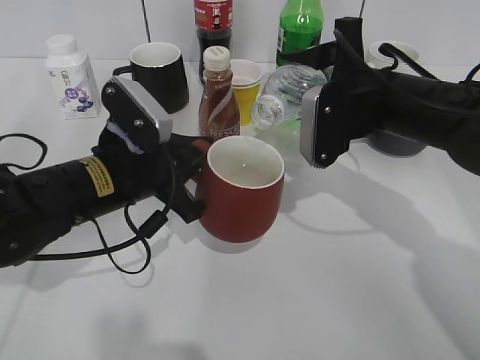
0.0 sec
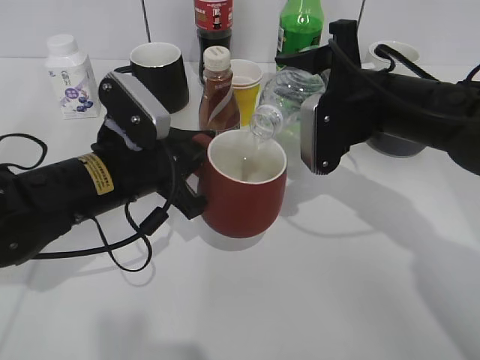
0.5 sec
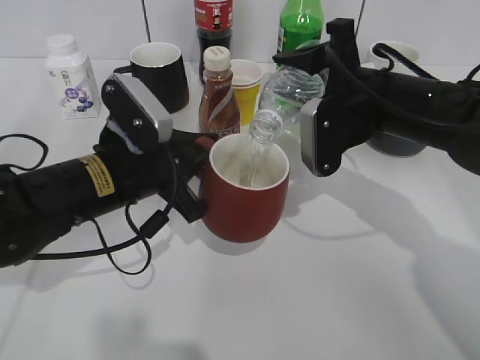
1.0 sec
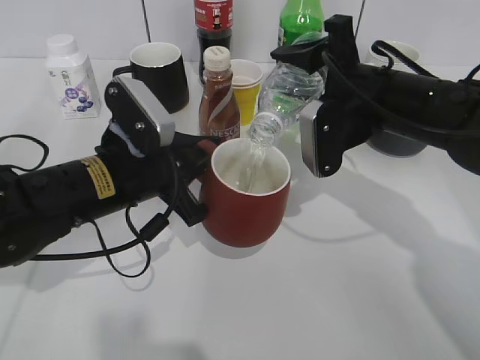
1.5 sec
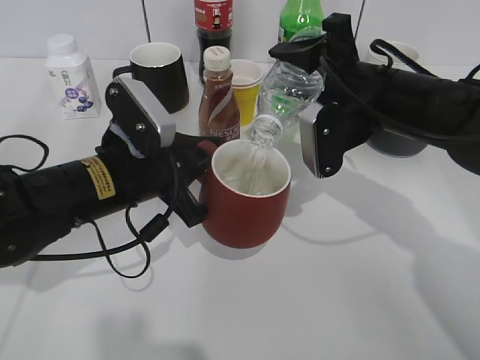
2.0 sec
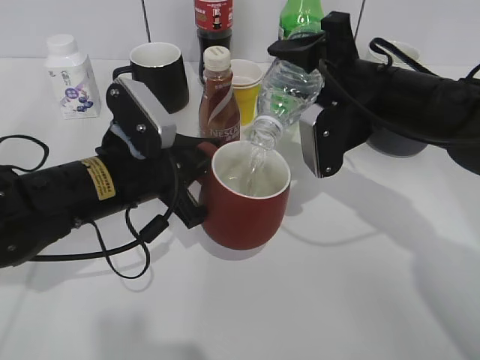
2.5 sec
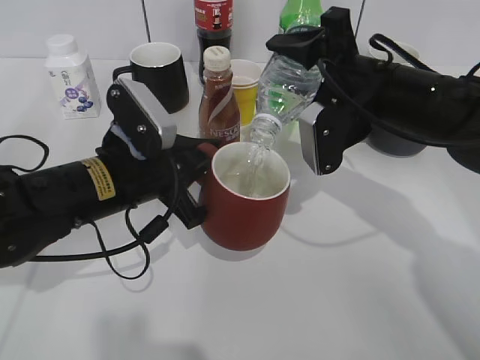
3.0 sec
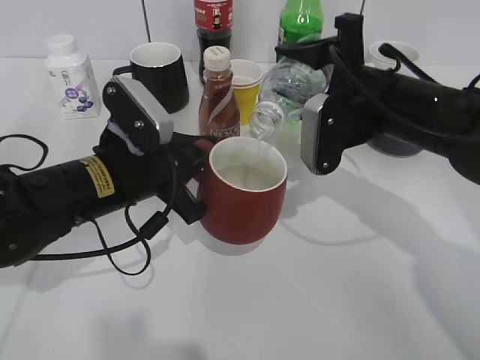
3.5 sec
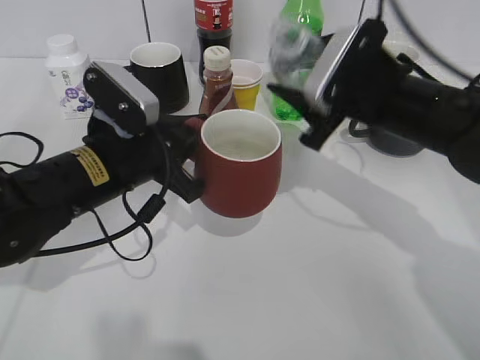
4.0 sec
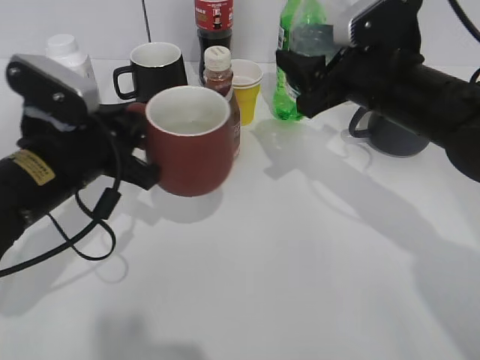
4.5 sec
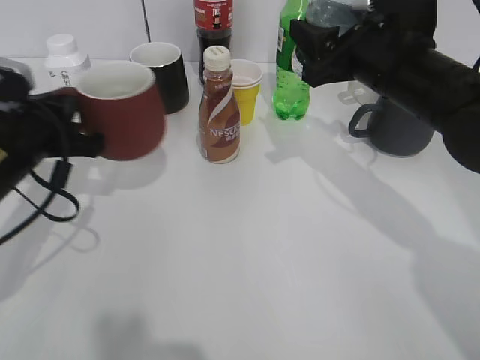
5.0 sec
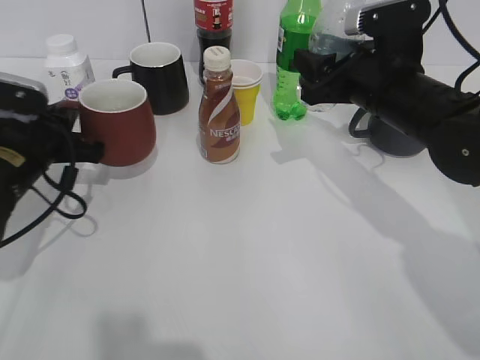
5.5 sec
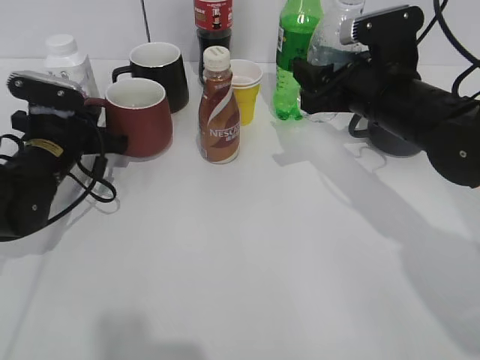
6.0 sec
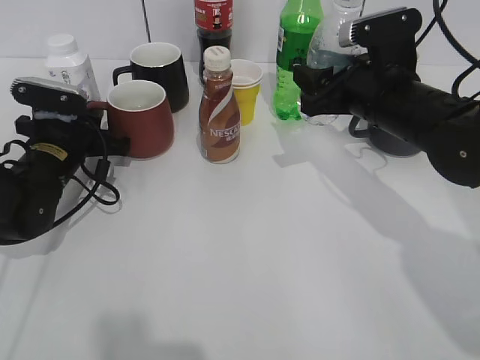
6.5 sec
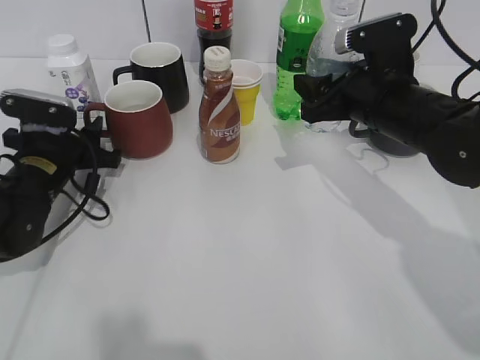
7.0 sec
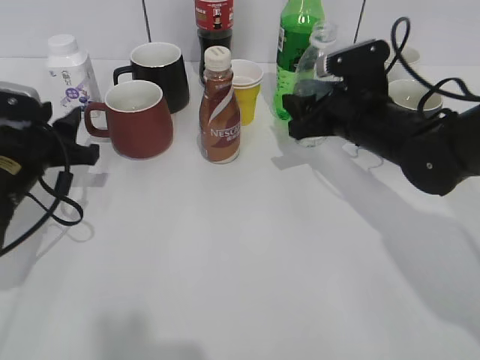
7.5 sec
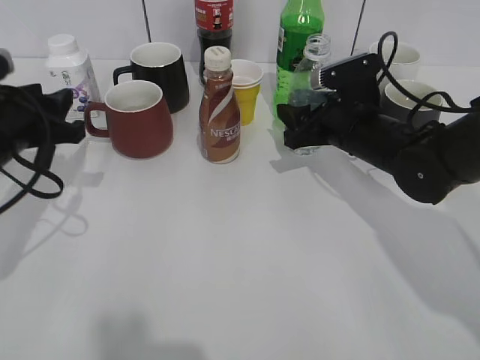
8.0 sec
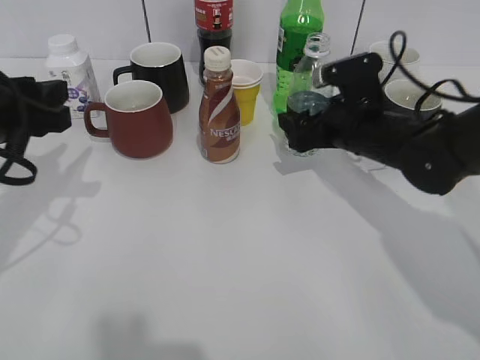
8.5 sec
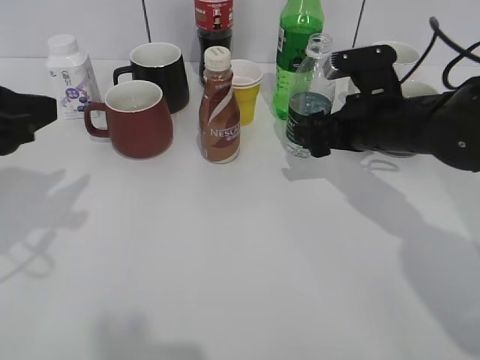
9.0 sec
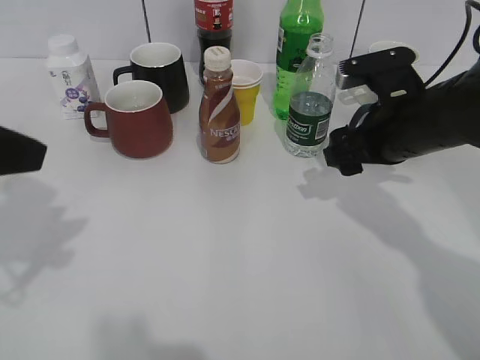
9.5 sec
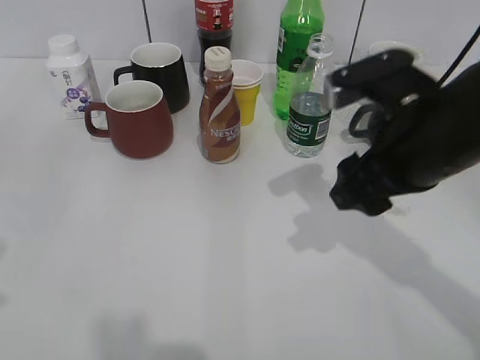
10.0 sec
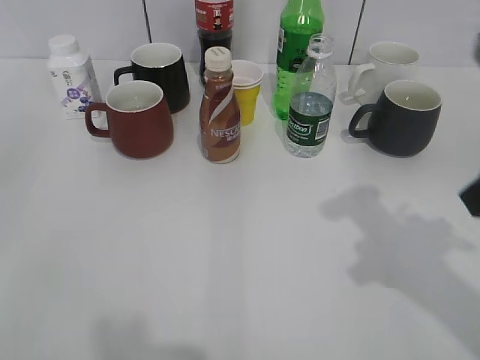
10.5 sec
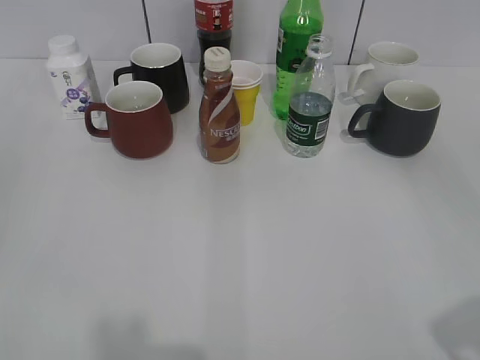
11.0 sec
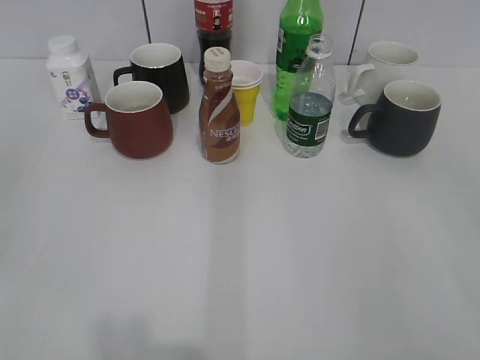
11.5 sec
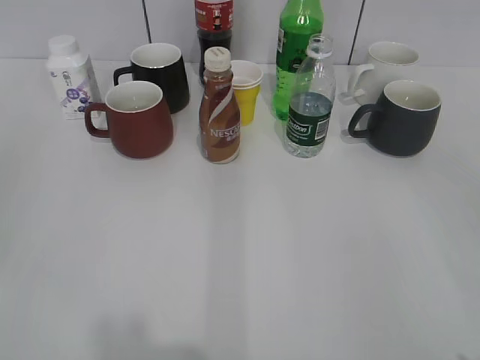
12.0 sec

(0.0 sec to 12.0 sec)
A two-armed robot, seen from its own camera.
Step, 0.0 sec - 3.5 sec: Pour the water from bottle to cup with right gripper.
Step, 4.0 sec - 6.5 sec: Place the red cup on the table with left gripper.
Step, 7.0 sec - 9.0 sec: Place the water bottle on the table with right gripper.
0.0 sec - 2.0 sec: The grippers stay close to where they were, moving slightly.
4.0 sec - 6.0 sec: The left gripper travels to the left and forward by some 15 cm.
6.0 sec - 8.0 sec: The right gripper goes about 5 cm downward. Meanwhile the left gripper shifts about 10 cm backward and upward, and opens.
8.0 sec - 10.0 sec: The left gripper moves backward and upward, about 25 cm. The right gripper travels backward and upward by roughly 15 cm, and opens and closes again.
10.0 sec - 12.0 sec: The right gripper is displaced backward and to the right by about 30 cm.

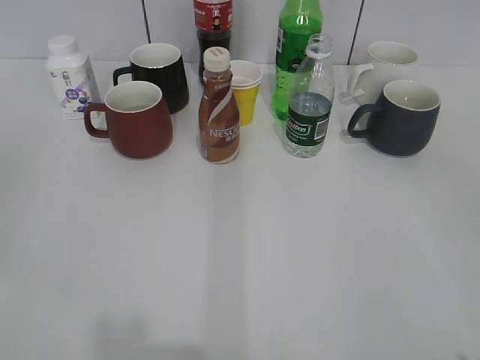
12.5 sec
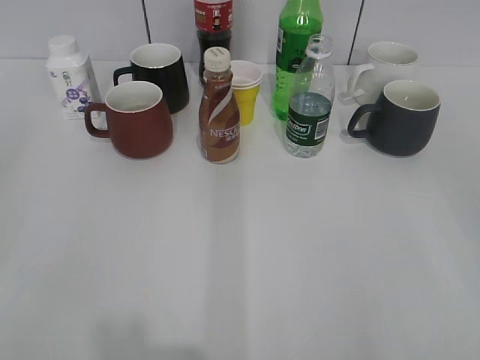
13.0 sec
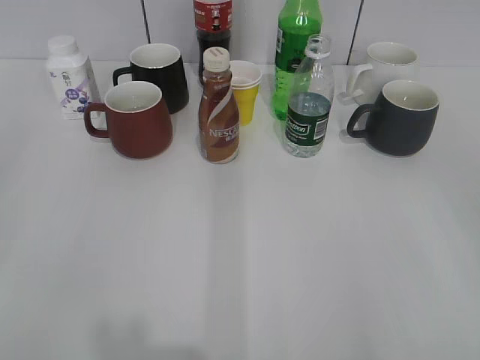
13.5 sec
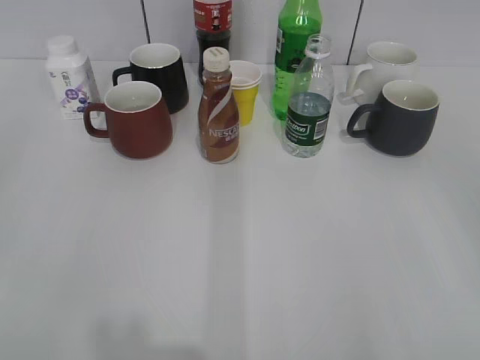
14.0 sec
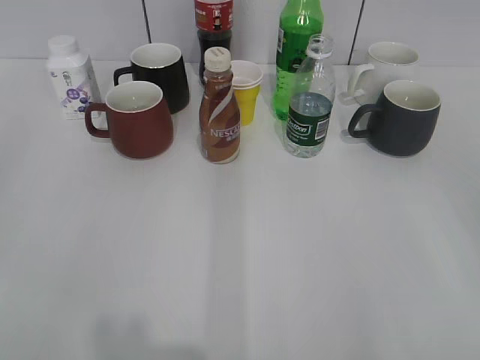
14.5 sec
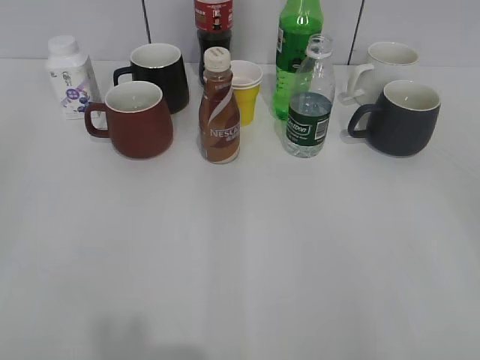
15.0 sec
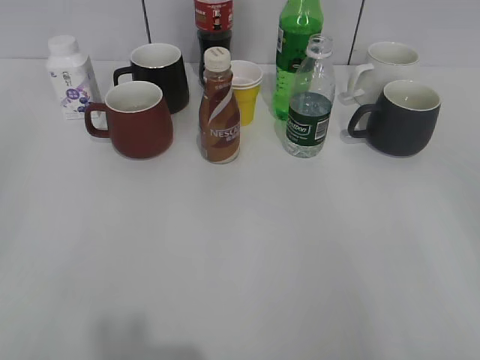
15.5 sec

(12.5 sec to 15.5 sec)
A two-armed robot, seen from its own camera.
14.0 sec - 15.5 sec: Both grippers stay about where they are.

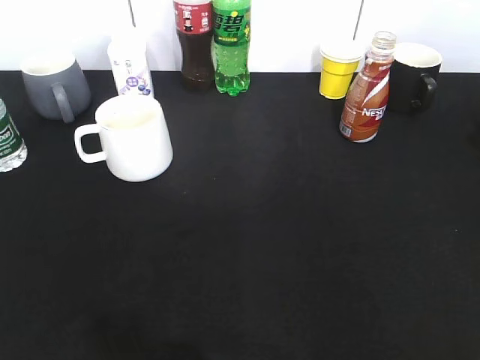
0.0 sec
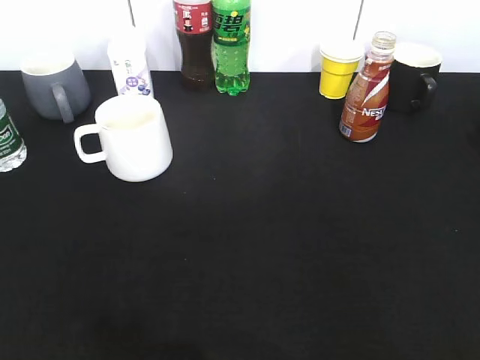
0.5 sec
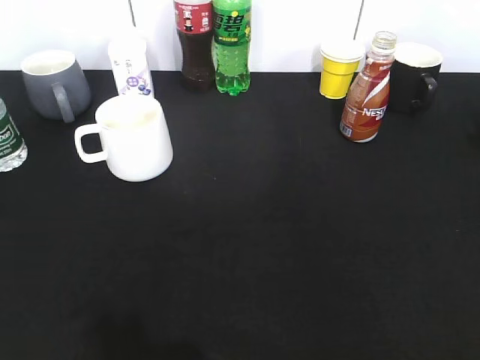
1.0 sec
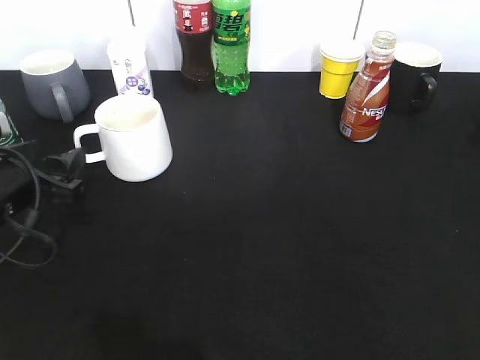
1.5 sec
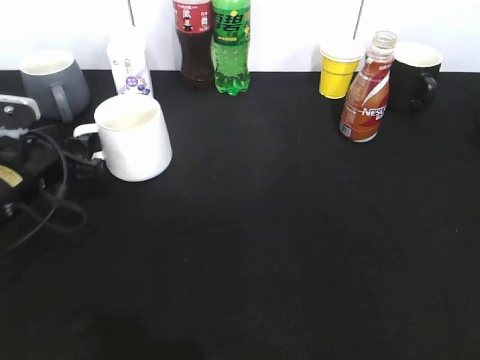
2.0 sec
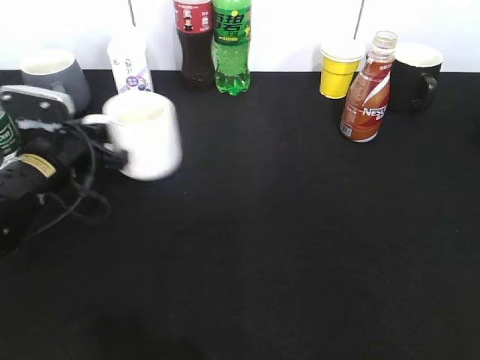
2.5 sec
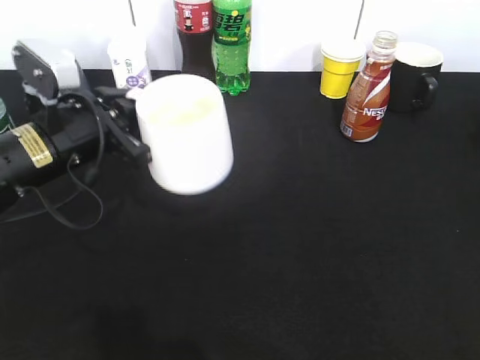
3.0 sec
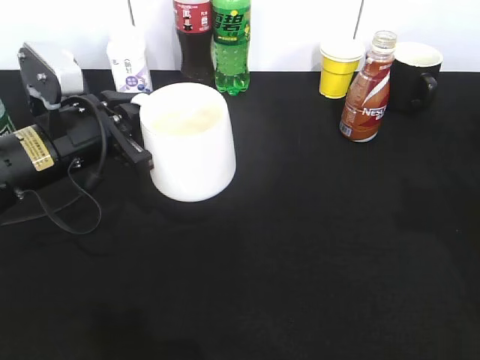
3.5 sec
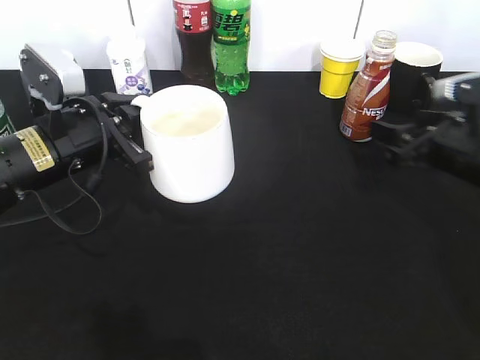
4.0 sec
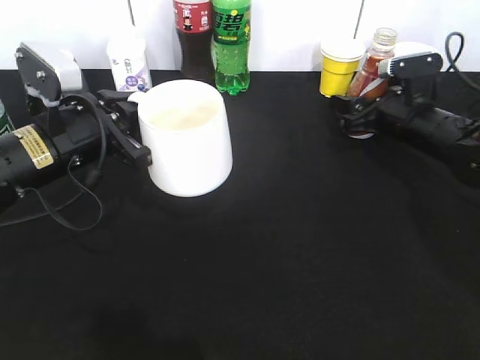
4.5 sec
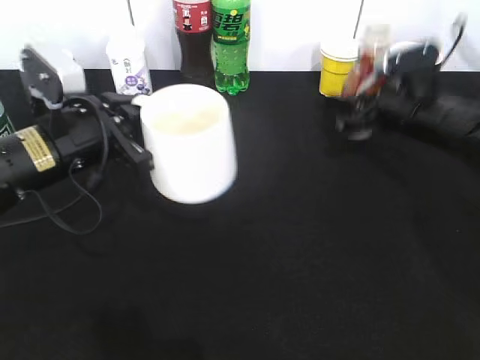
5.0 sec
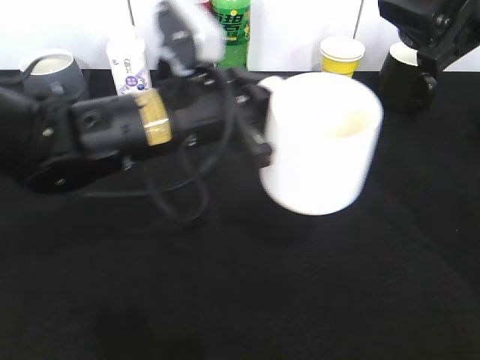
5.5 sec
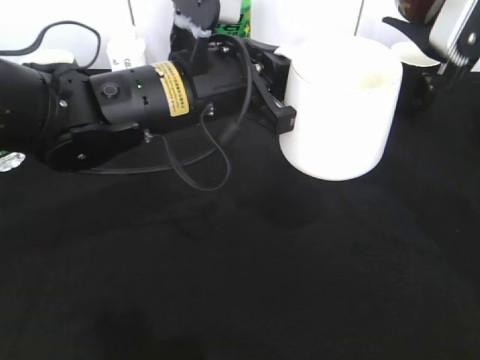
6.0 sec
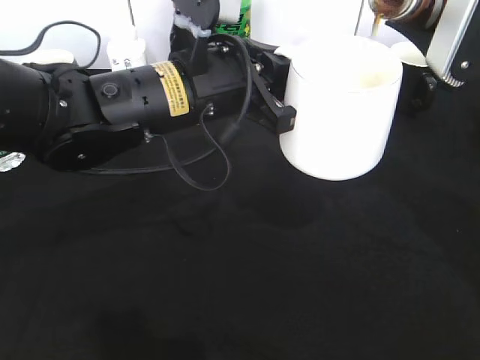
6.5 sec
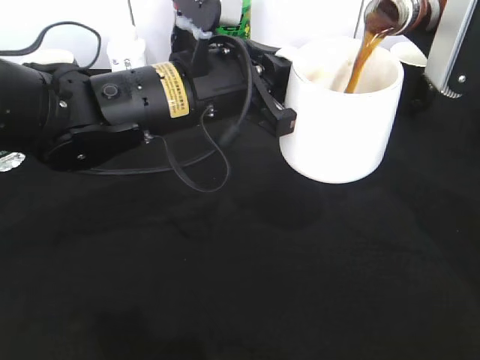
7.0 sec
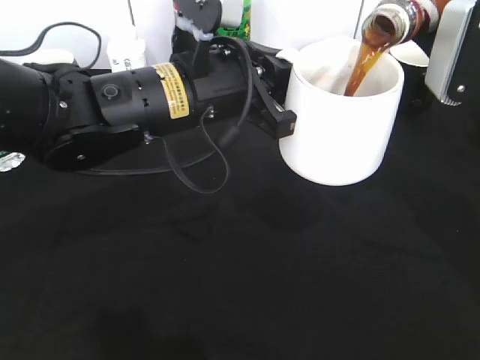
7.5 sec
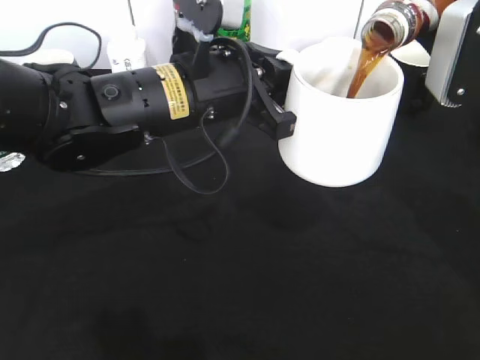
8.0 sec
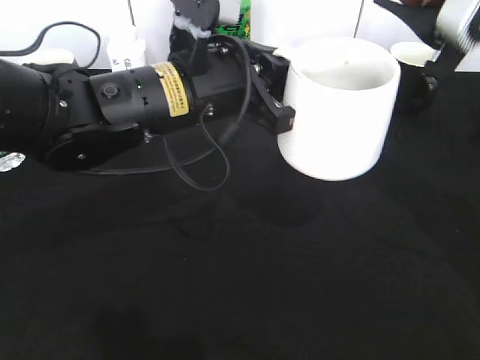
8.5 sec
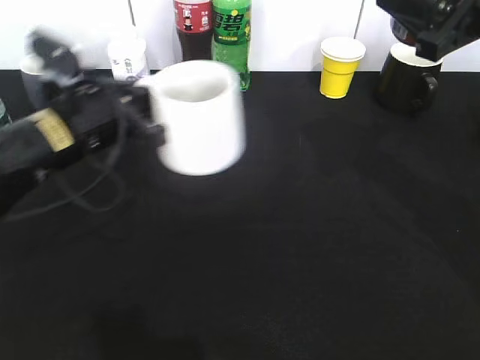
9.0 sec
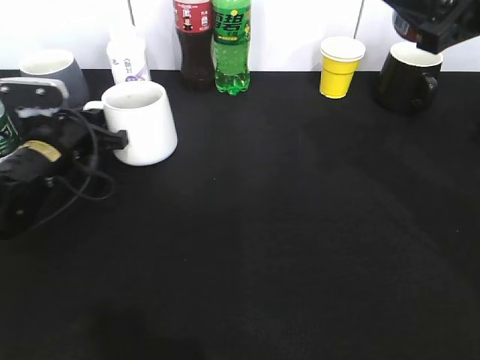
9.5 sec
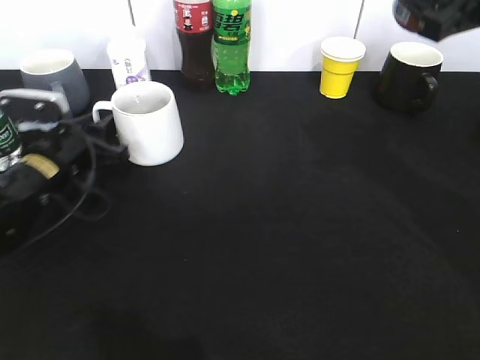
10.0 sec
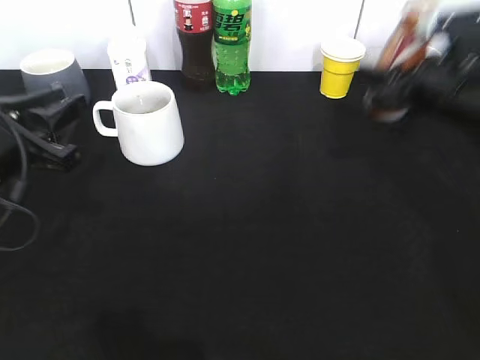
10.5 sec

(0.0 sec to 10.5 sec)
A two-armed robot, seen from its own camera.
Step, 1.0 sec - 2.0 sec: Grasp the white cup with left gripper.
Step, 2.5 sec - 3.0 sec: Lift the white cup with left gripper.
Step, 3.5 sec - 4.0 sec: Grasp the bottle with coffee with right gripper.
Step, 5.0 sec - 8.5 sec: Pour the coffee from bottle to cup with right gripper.
Step, 9.0 sec - 10.0 sec: Place the white cup on the table with left gripper.
0.0 sec - 2.0 sec: The left gripper goes approximately 35 cm forward and downward, and opens.
2.0 sec - 4.0 sec: The left gripper travels to the right by roughly 5 cm, and closes; the right gripper is displaced forward and downward by roughly 35 cm, and opens its fingers.
4.0 sec - 6.5 sec: The left gripper shifts about 15 cm to the right and upward. The right gripper travels upward by about 15 cm, and closes its fingers.
6.5 sec - 8.5 sec: The grippers move only a little.
8.5 sec - 10.5 sec: The right gripper moves downward and forward, some 15 cm; the left gripper shifts about 20 cm to the left, and opens.
